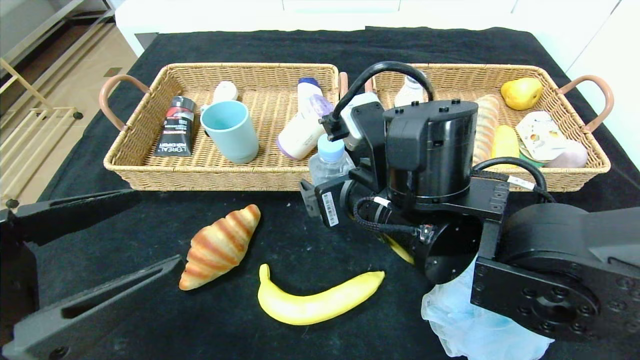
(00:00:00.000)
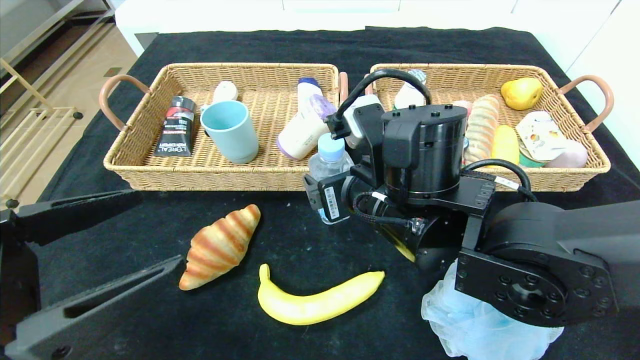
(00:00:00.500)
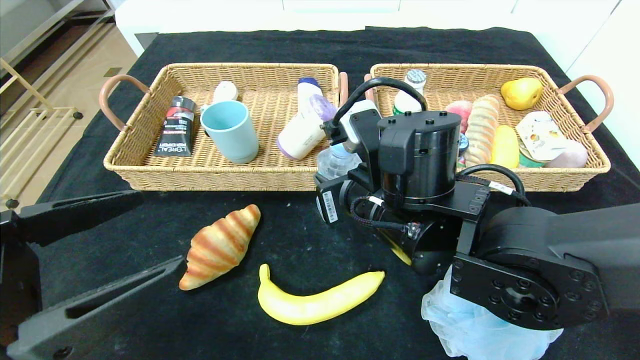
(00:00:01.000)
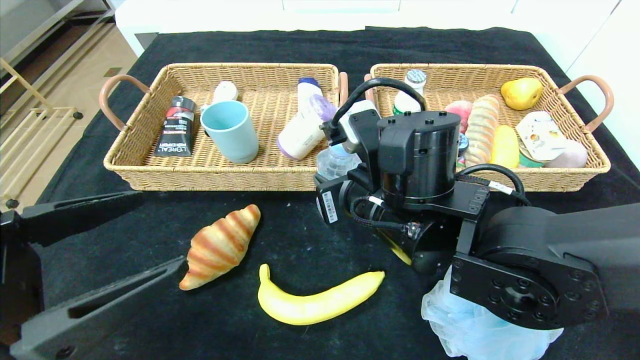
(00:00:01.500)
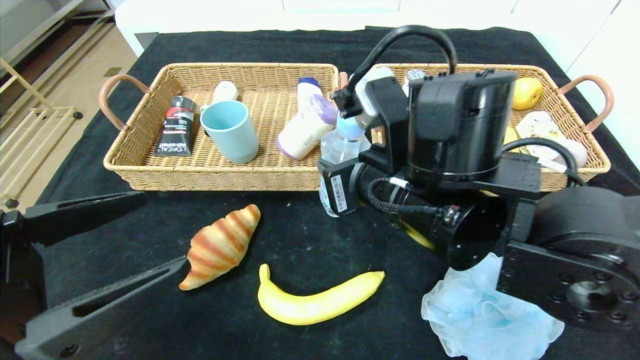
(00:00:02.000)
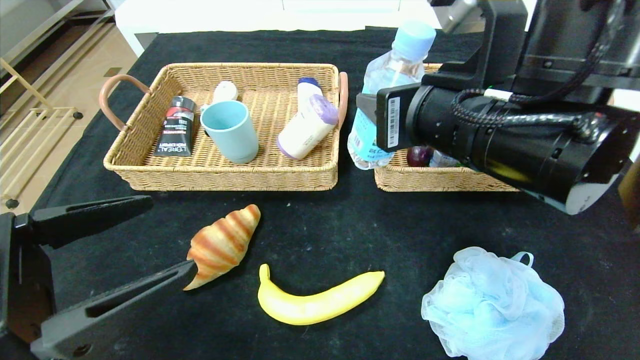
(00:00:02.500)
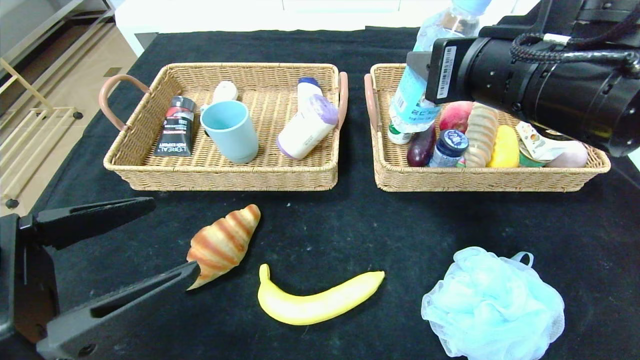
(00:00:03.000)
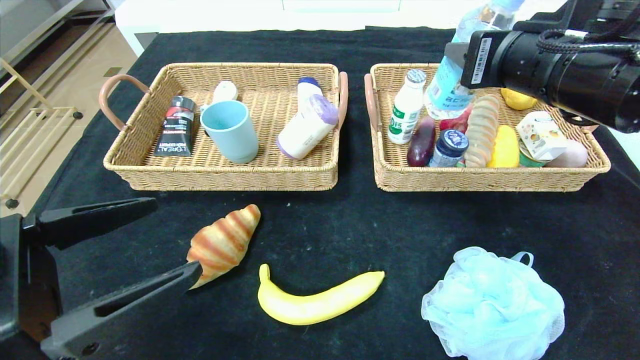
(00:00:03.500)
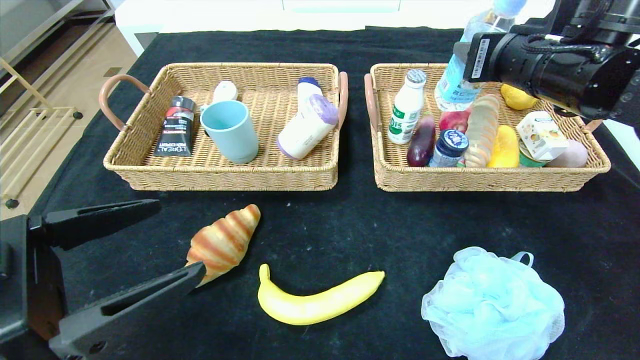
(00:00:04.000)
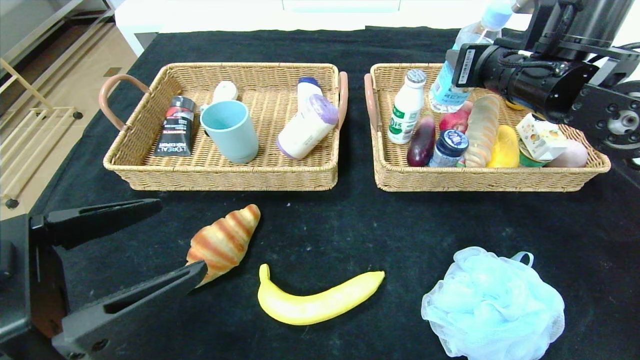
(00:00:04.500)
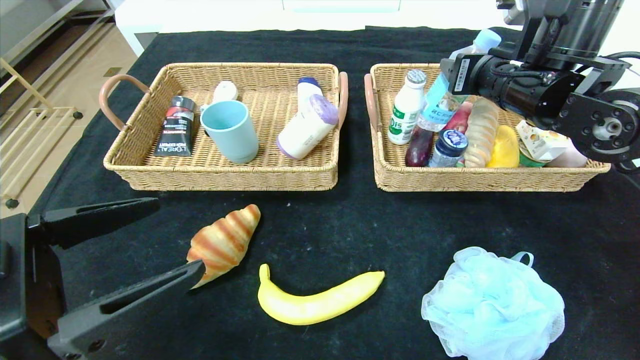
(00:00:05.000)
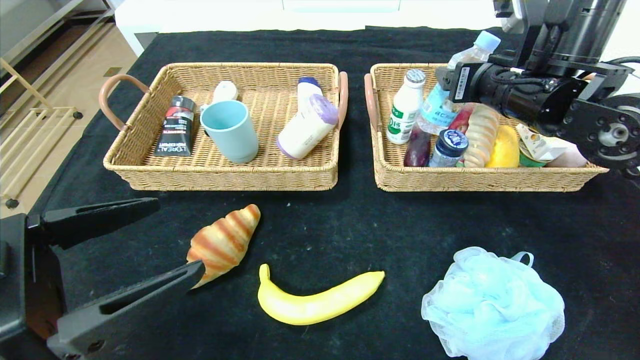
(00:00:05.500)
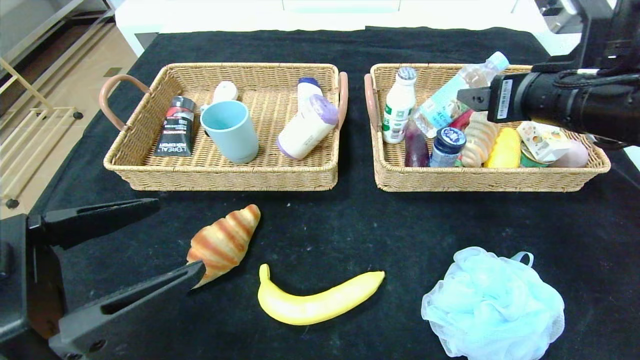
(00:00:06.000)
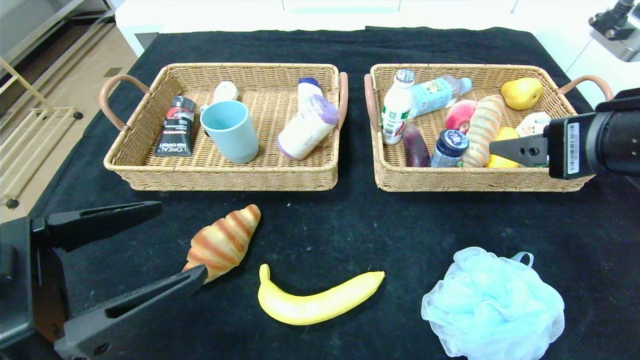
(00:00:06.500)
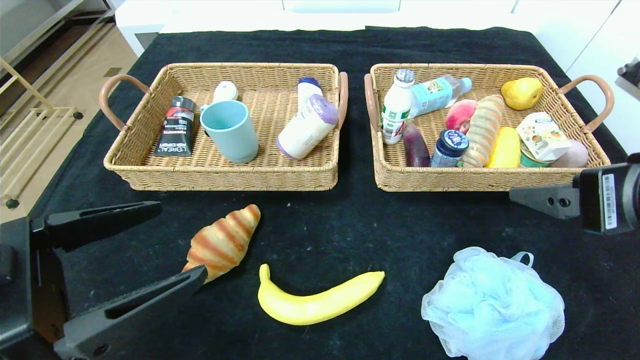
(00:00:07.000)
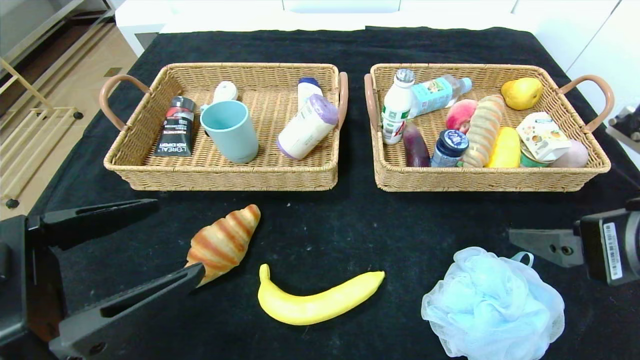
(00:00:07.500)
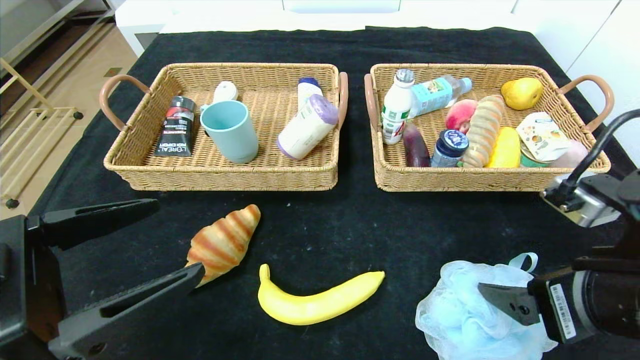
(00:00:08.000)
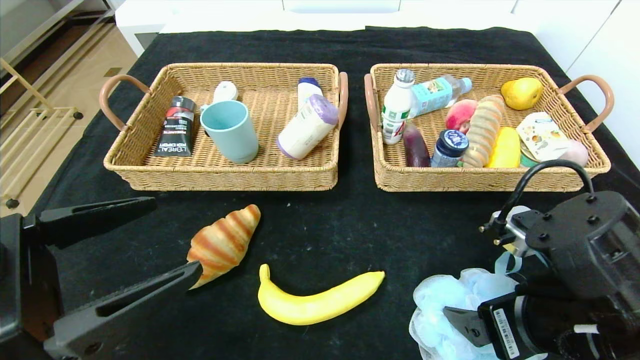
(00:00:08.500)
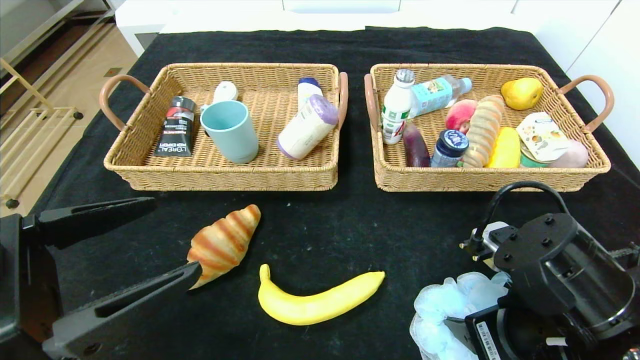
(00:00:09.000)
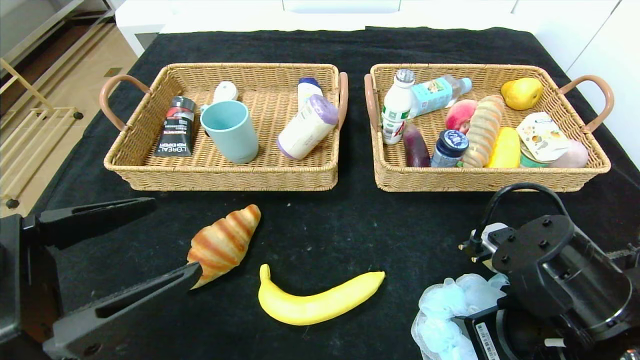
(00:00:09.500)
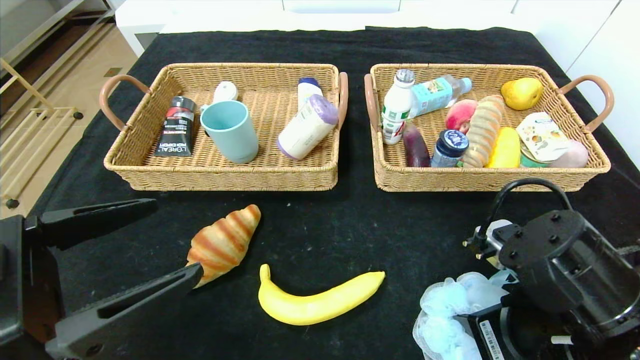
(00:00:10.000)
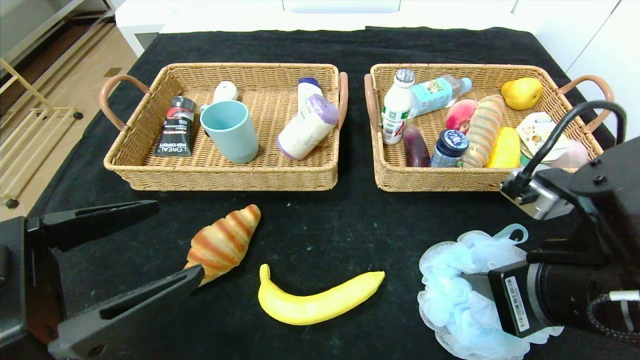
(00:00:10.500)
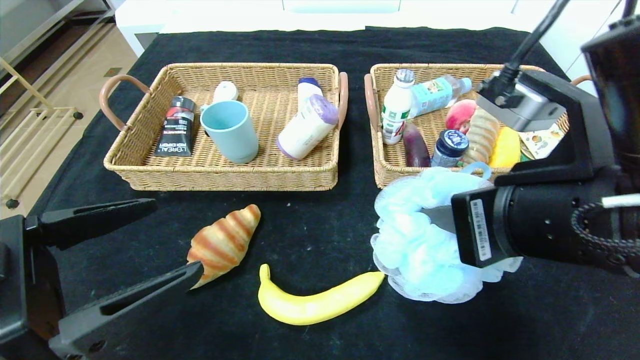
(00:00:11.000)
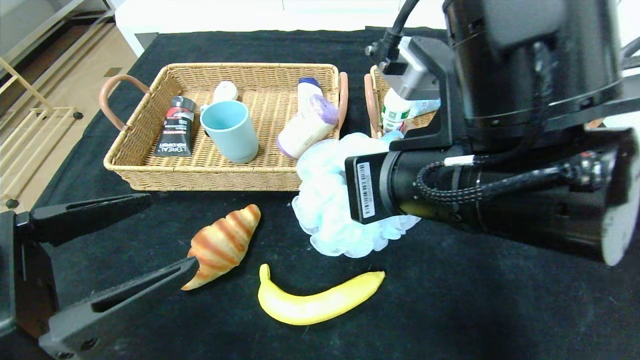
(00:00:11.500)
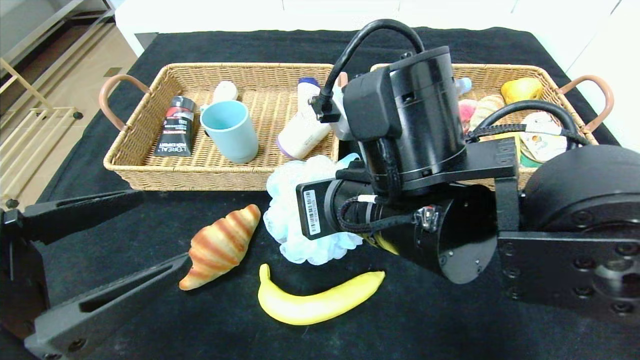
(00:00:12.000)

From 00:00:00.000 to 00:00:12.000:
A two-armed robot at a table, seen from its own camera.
Step, from 00:00:00.000 to 00:00:05.500: Grasp the soda water and put it in the right basket.
From 00:00:00.000 to 00:00:02.000: The right gripper closes up.
From 00:00:02.000 to 00:00:04.000: The right gripper goes about 20 cm to the right, upward and forward.
From 00:00:04.000 to 00:00:06.000: The right gripper opens up.
From 00:00:06.000 to 00:00:08.000: The right gripper travels backward and downward by some 15 cm.
From 00:00:08.000 to 00:00:10.000: The right gripper is displaced downward by roughly 5 cm, and closes up.
From 00:00:10.000 to 00:00:12.000: The right gripper travels to the left and upward by some 15 cm.

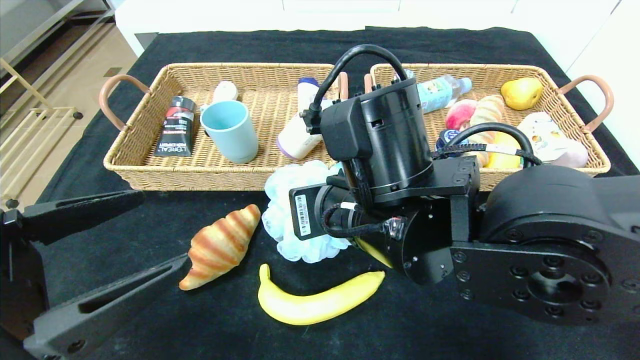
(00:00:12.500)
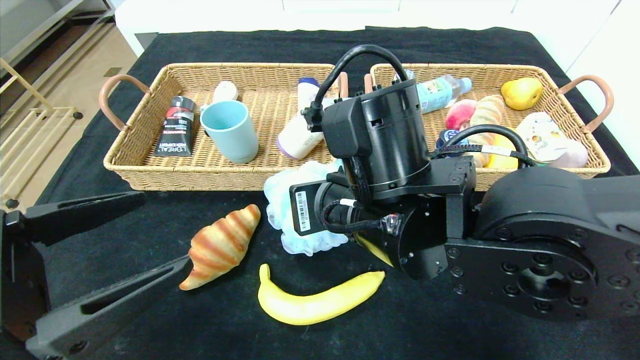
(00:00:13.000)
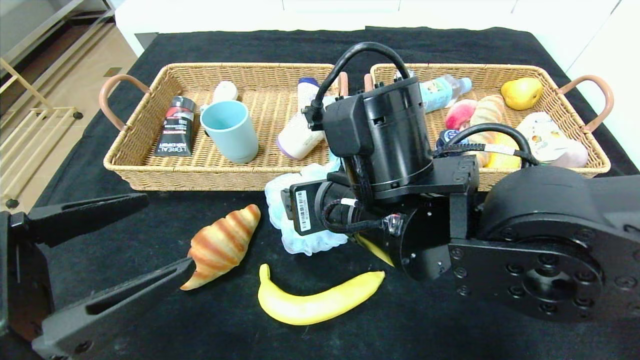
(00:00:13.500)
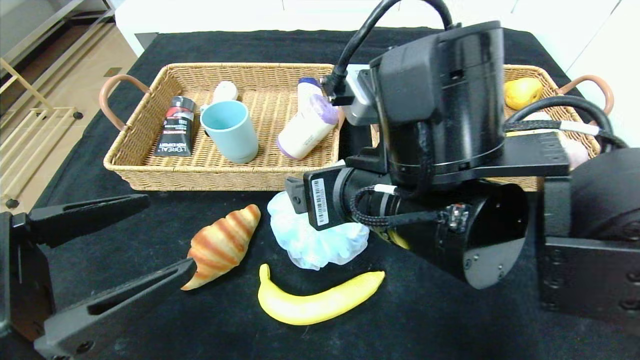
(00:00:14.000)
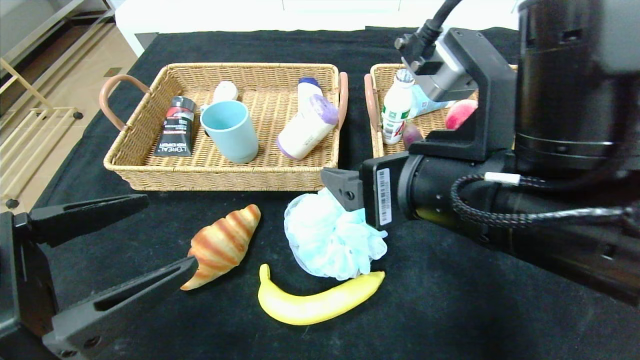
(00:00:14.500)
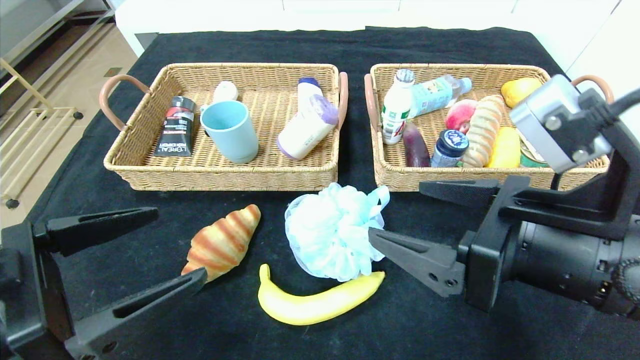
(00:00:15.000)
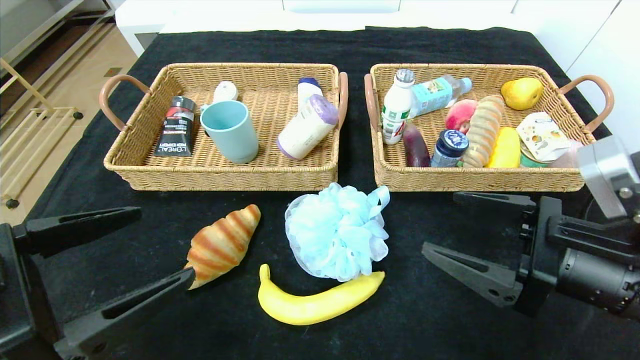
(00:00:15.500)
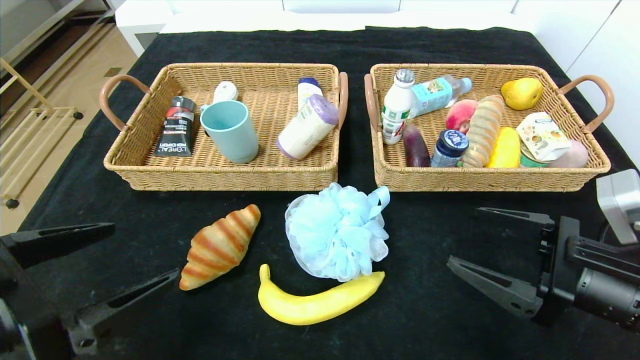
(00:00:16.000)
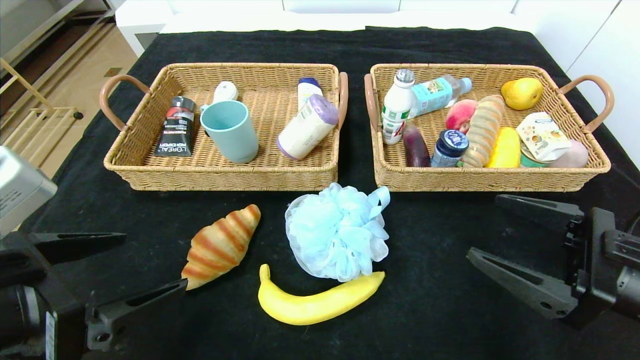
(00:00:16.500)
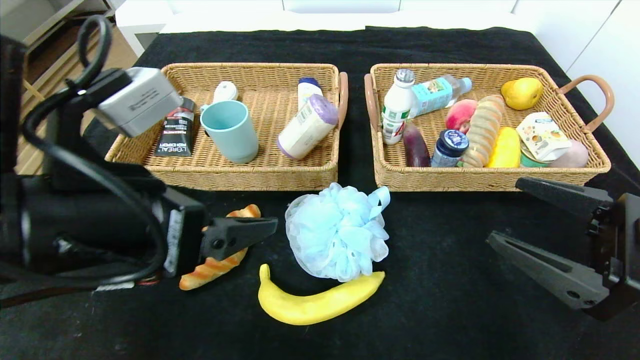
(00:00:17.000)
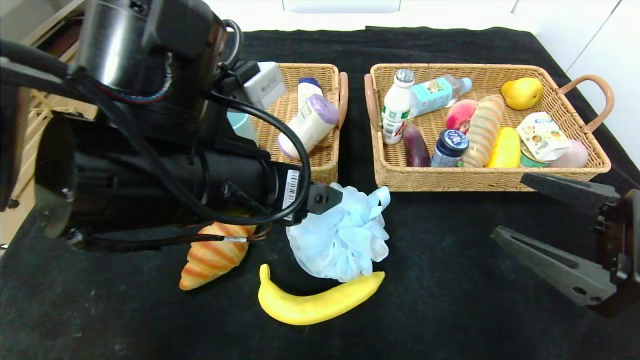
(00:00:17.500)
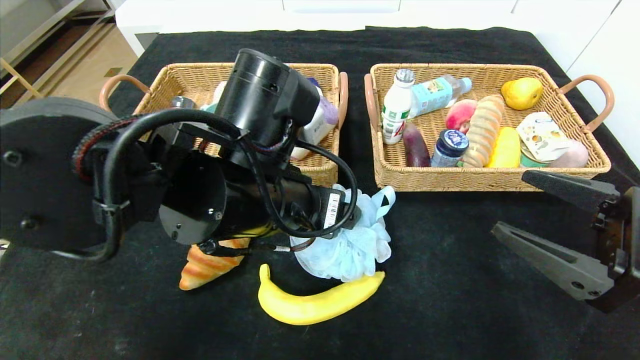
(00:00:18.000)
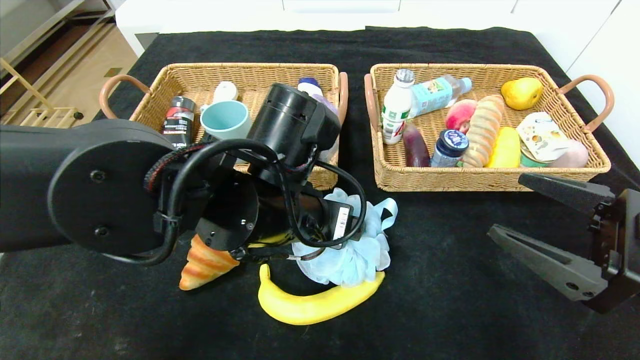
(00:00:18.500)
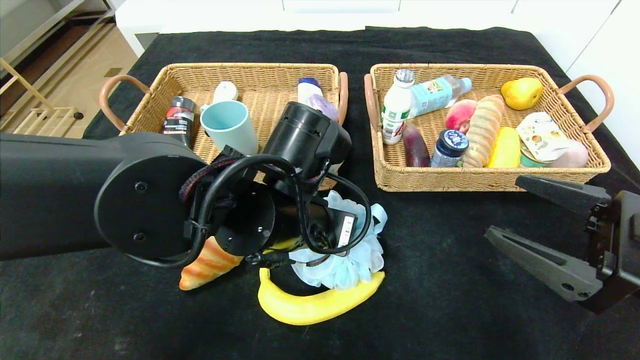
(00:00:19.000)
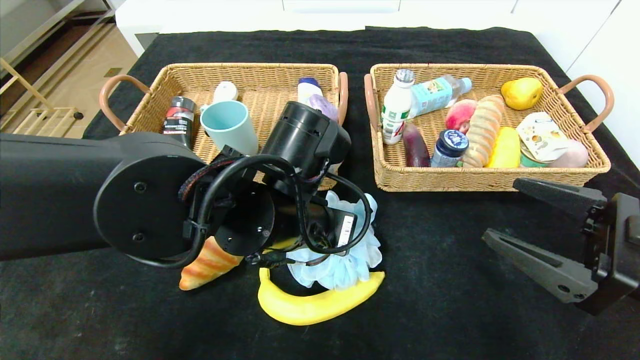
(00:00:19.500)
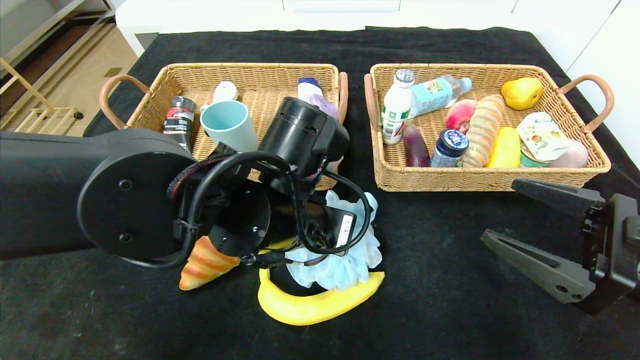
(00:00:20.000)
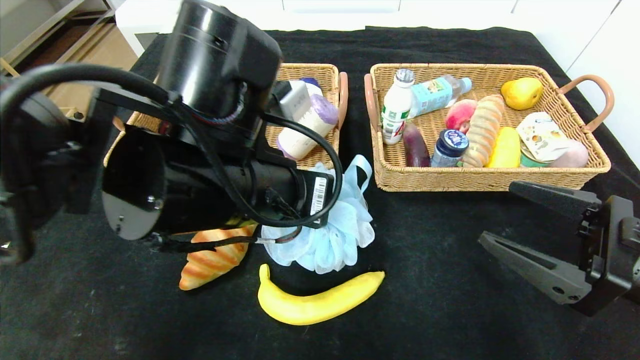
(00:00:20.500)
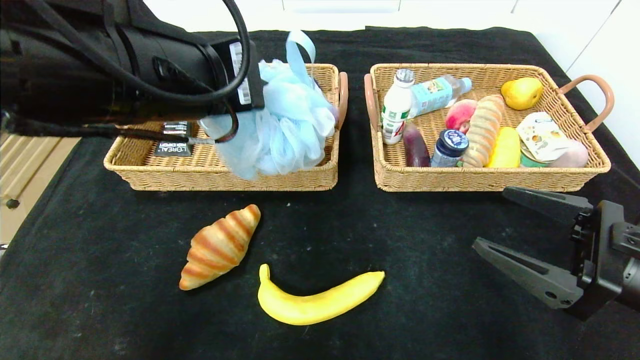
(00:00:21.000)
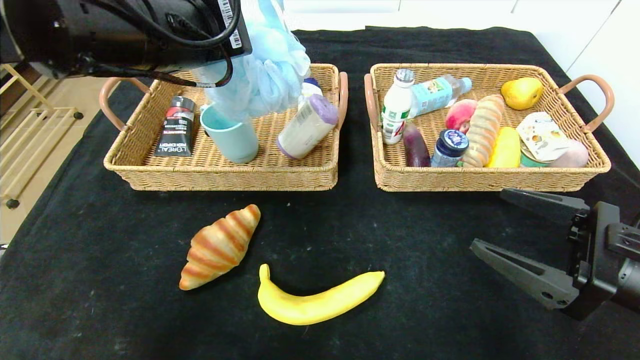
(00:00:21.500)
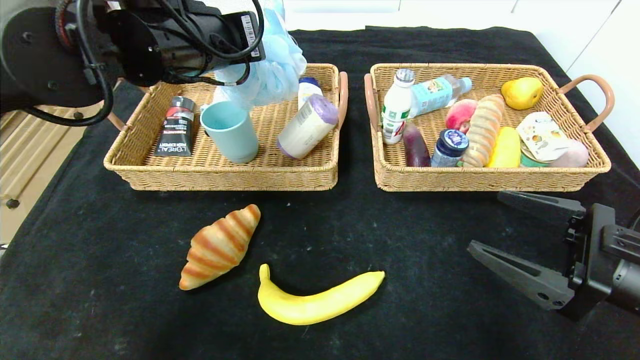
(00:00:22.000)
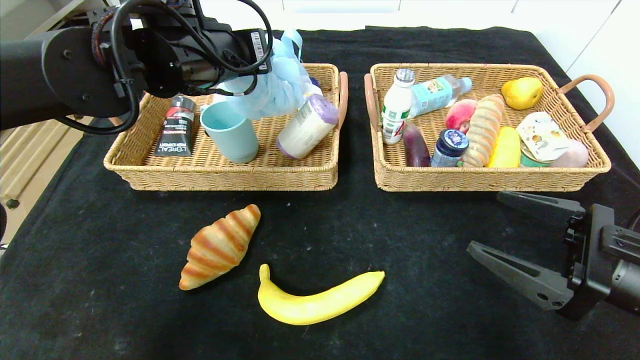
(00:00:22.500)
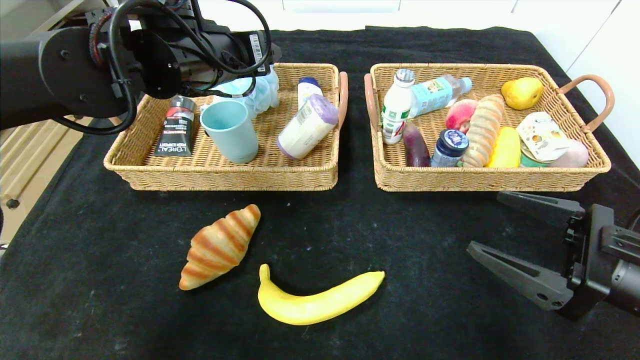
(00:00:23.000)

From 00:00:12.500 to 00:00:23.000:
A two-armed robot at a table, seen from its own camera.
Step, from 00:00:14.000 to 00:00:22.500: Grasp the bath ball and put it in the left basket.
From 00:00:12.500 to 00:00:14.500: The right gripper travels to the right by about 5 cm, and opens its fingers.
From 00:00:14.500 to 00:00:16.500: The right gripper shifts about 20 cm to the right and downward.
From 00:00:16.500 to 00:00:19.000: The left gripper goes about 25 cm to the right and forward, and closes up.
From 00:00:19.000 to 00:00:21.000: The left gripper goes some 15 cm upward and to the left, and closes up.
From 00:00:21.000 to 00:00:23.000: The left gripper goes some 15 cm forward, and opens its fingers.
